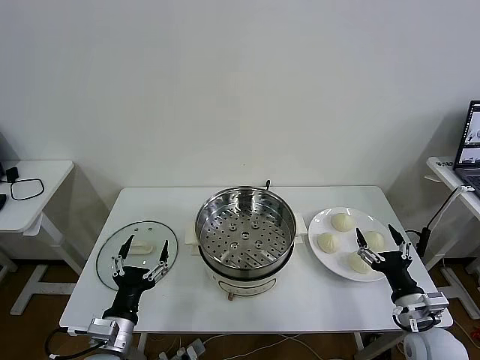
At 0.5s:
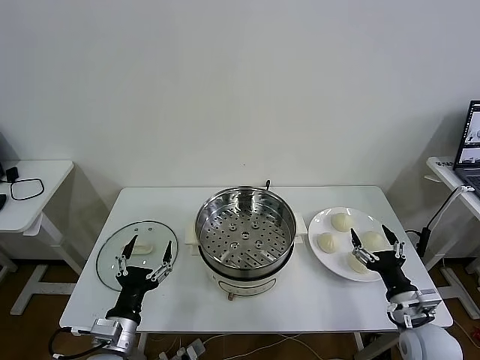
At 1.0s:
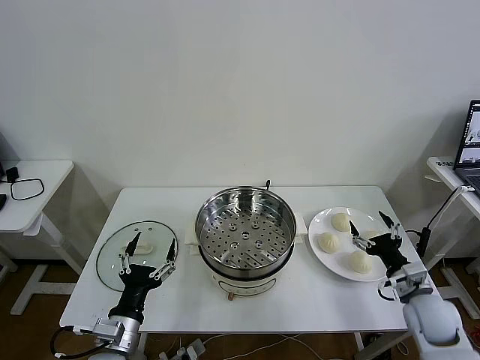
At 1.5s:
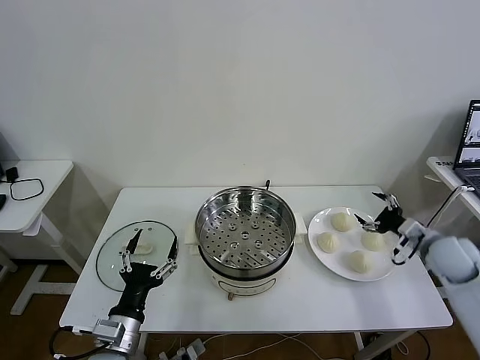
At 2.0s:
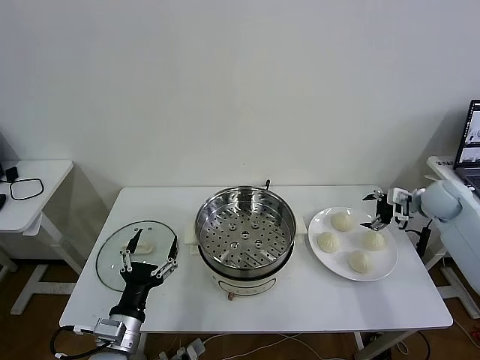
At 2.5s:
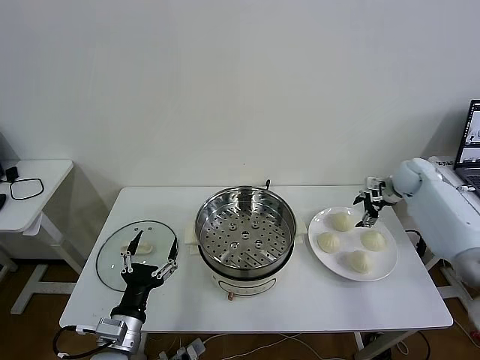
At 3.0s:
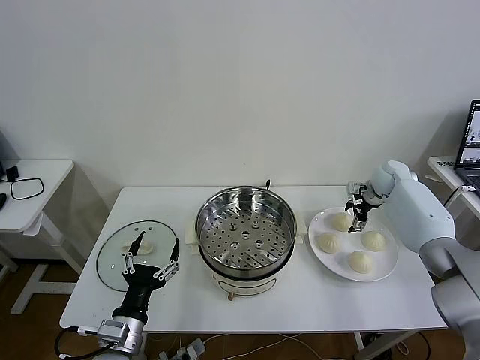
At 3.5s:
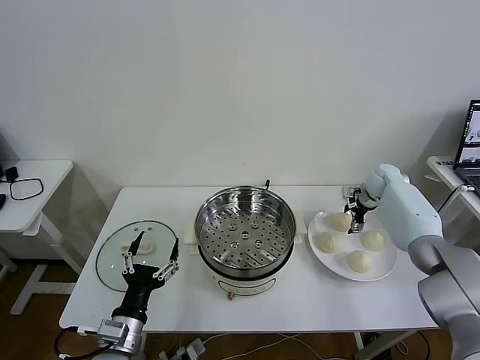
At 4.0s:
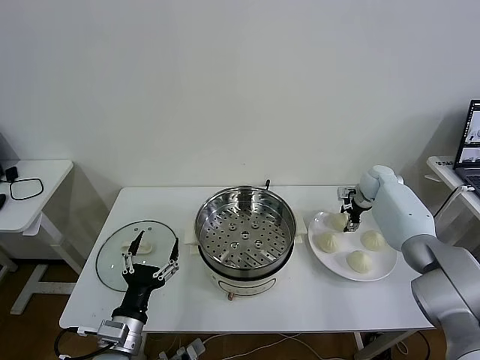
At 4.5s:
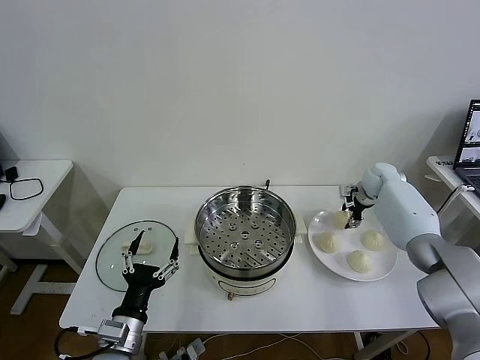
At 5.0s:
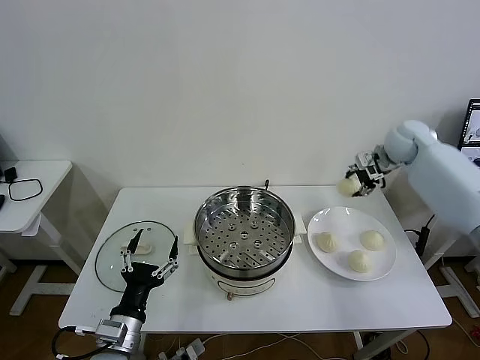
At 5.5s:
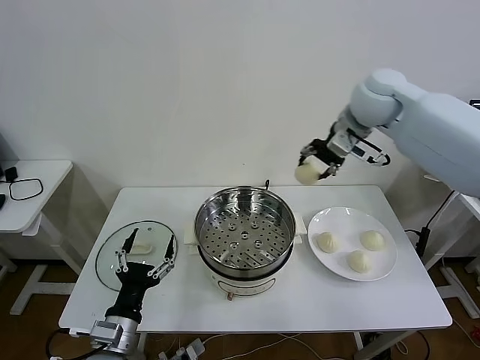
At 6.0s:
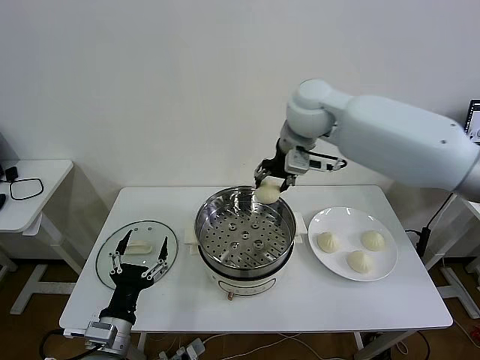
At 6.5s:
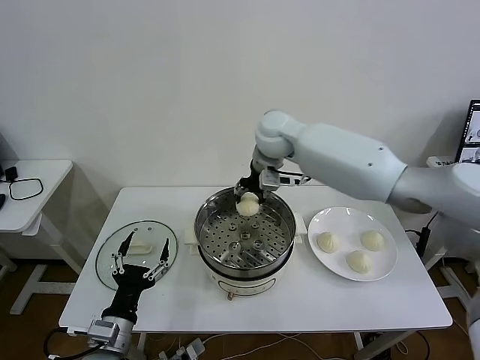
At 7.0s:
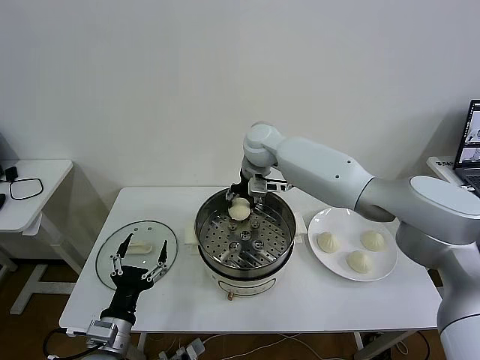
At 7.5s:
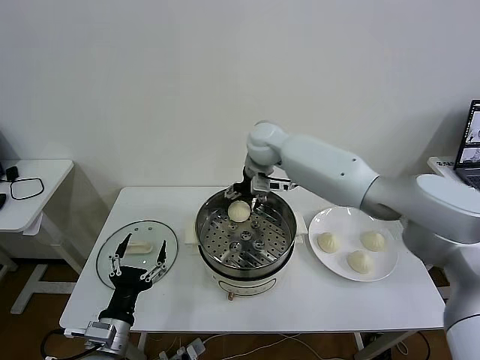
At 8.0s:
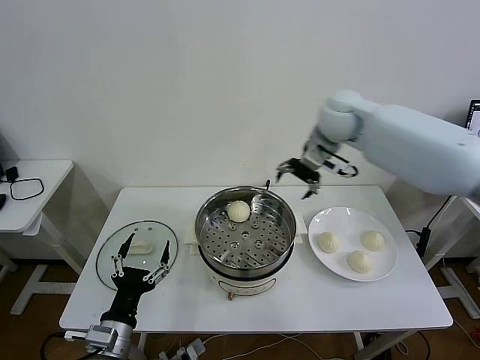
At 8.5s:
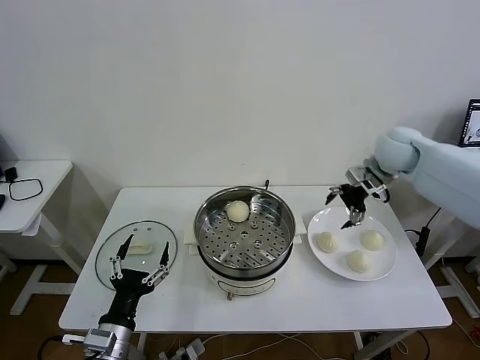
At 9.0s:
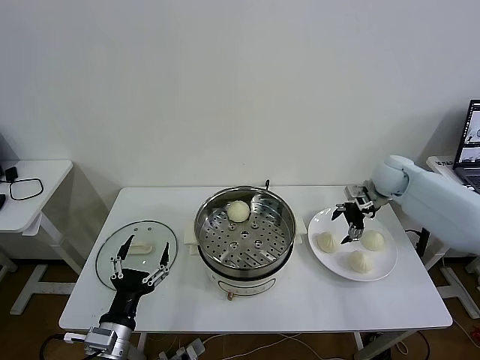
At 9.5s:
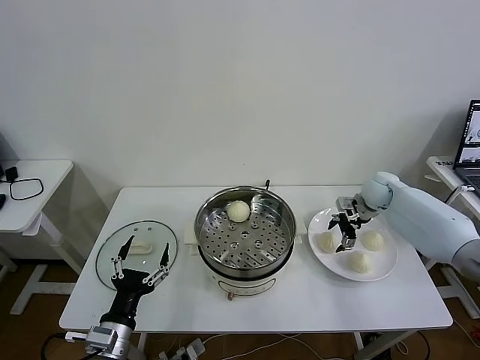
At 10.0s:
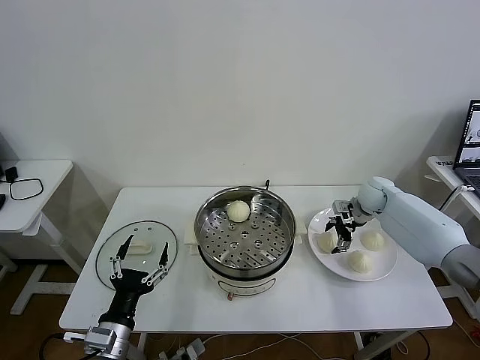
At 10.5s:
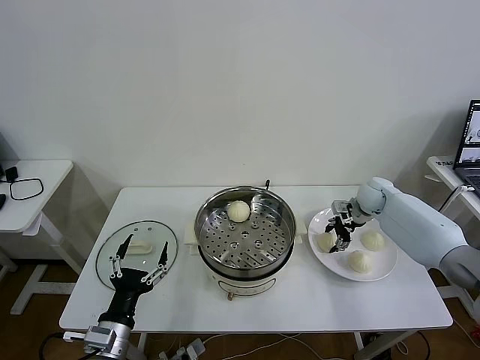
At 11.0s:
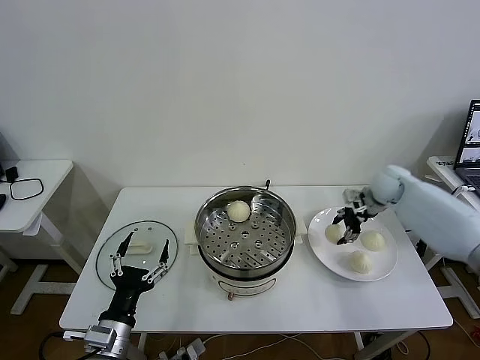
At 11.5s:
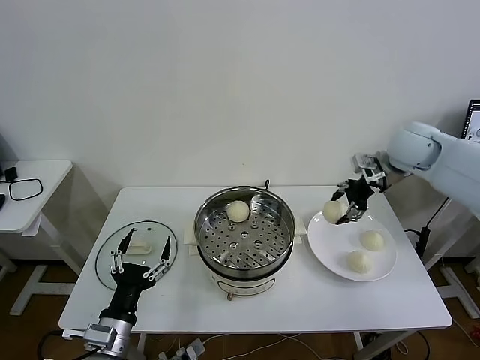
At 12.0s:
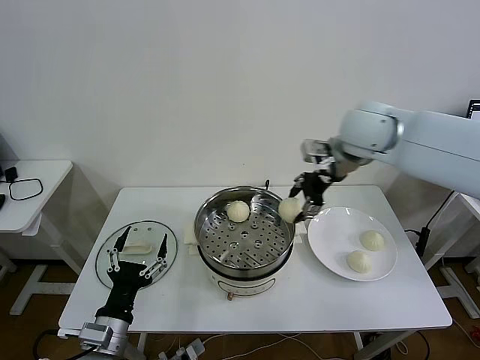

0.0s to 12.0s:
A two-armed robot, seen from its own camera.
Task of the whole recording: take steamed baozi put them in steamer then cover it.
Step, 0.0s to 4.0s: Grasp the baozi in the plate with right gripper.
Step, 4.5s to 7.0s: Place the baozi on the steamer with right gripper.
Step, 7.5s to 10.0s: Grasp the baozi in the plate with right gripper.
2.0s to 4.0s: The right gripper goes some 15 cm forward, to the left and downward, and closes up.
4.0s to 6.0s: The right gripper travels to the left and upward by approximately 40 cm.
6.0s to 8.0s: The right gripper heads to the right, covering about 15 cm, and opens its fingers.
8.0s to 10.0s: The right gripper moves downward and to the right, approximately 25 cm.
10.0s to 12.0s: The right gripper goes approximately 30 cm upward and to the left, and closes up.

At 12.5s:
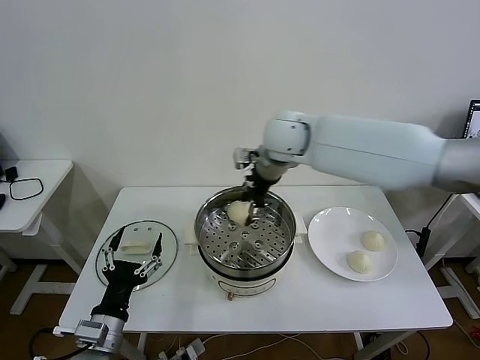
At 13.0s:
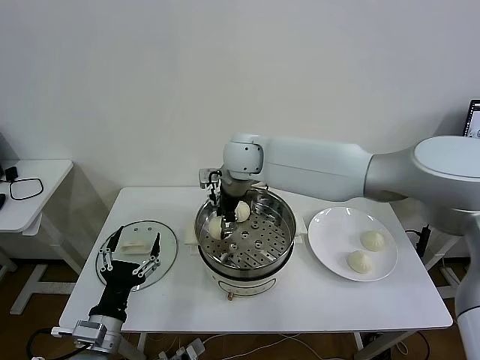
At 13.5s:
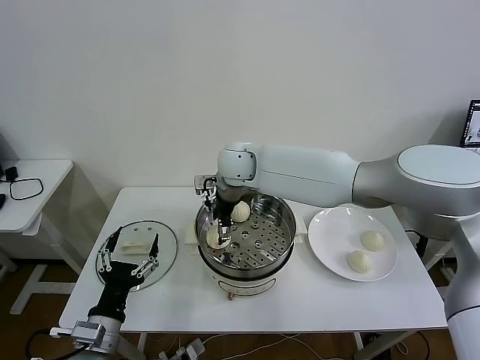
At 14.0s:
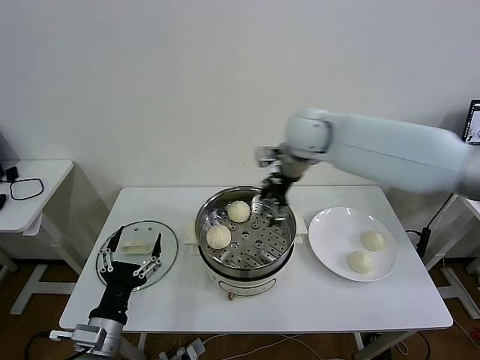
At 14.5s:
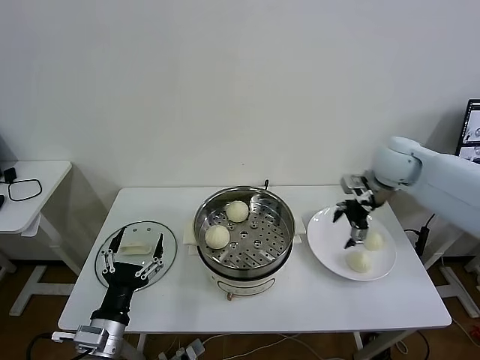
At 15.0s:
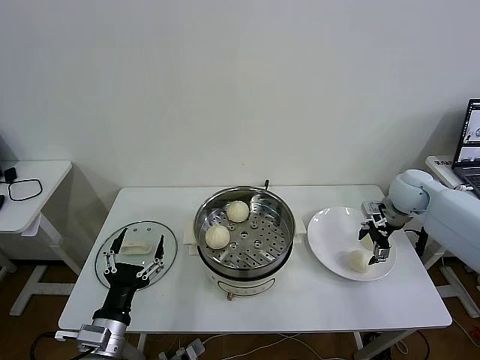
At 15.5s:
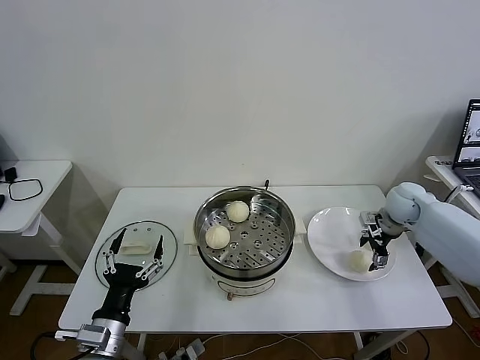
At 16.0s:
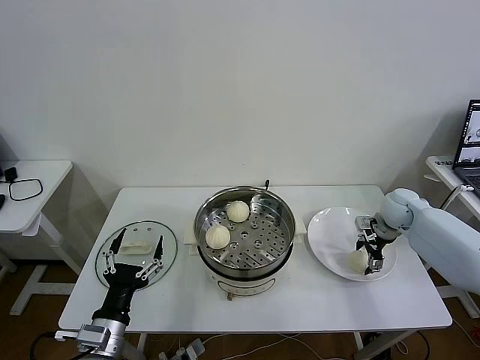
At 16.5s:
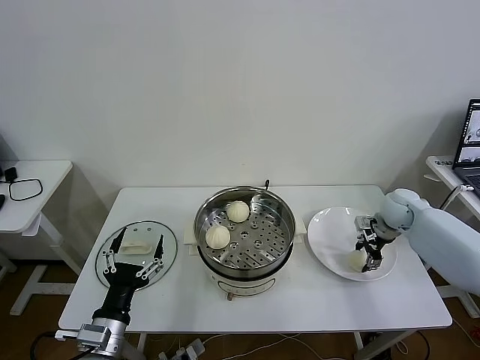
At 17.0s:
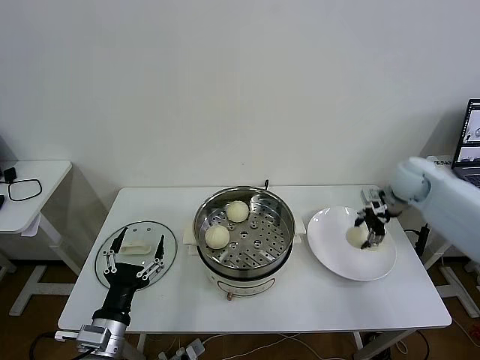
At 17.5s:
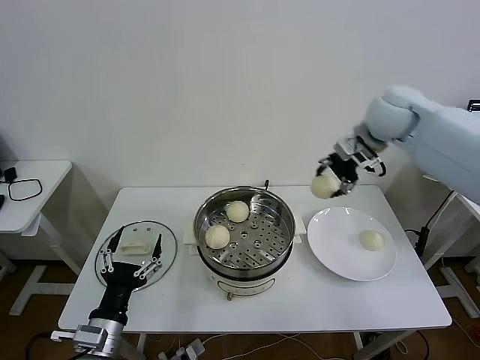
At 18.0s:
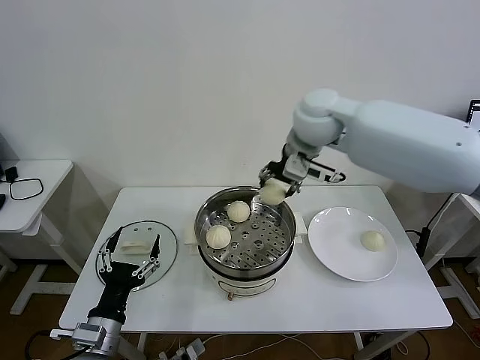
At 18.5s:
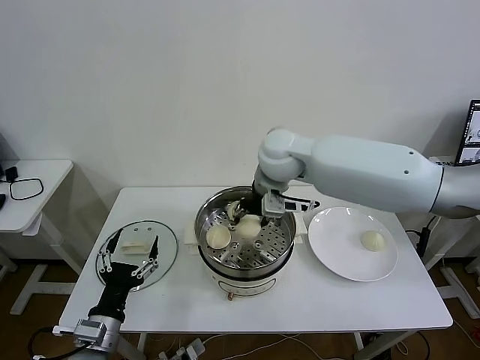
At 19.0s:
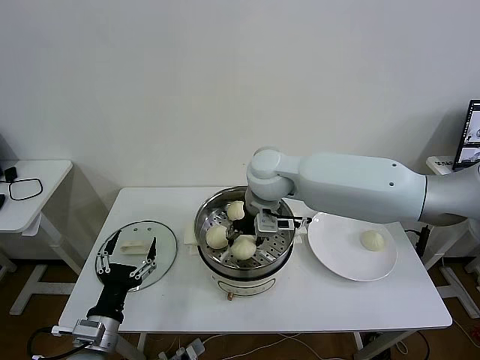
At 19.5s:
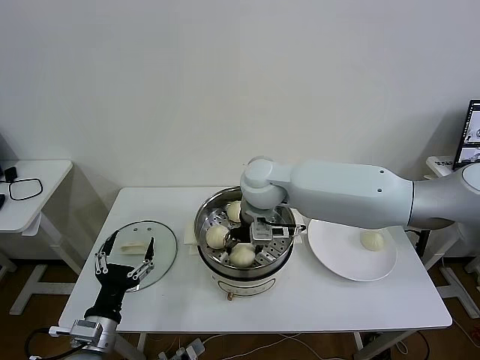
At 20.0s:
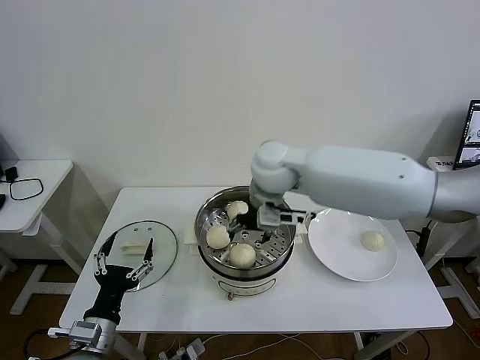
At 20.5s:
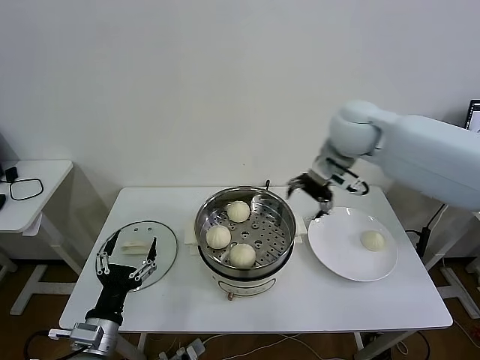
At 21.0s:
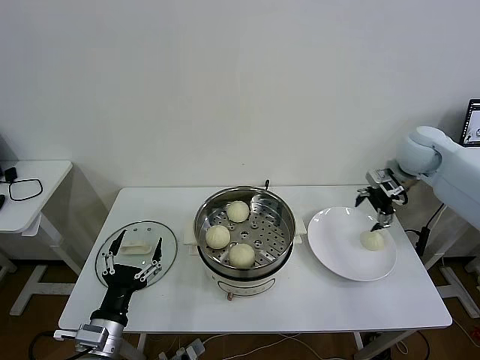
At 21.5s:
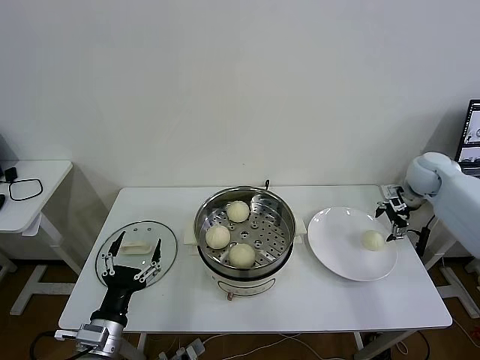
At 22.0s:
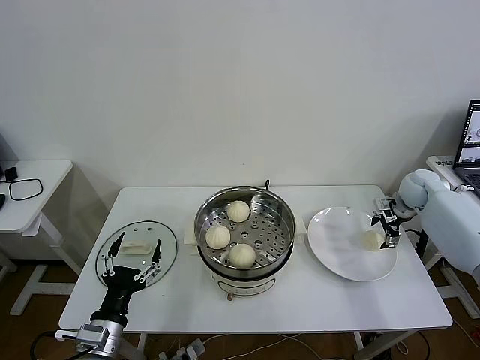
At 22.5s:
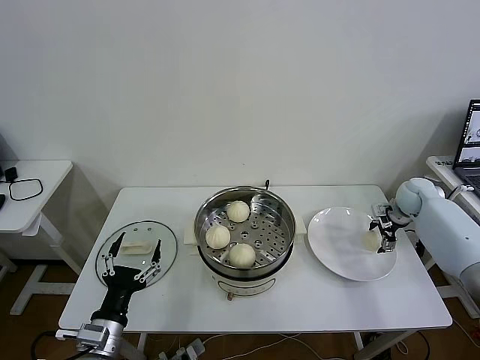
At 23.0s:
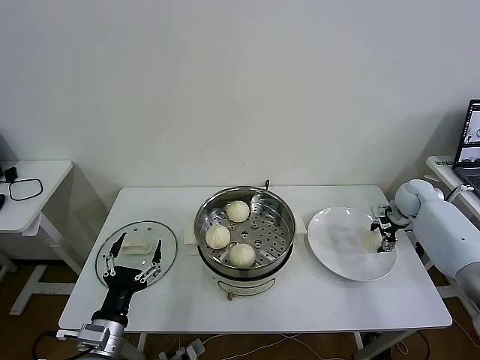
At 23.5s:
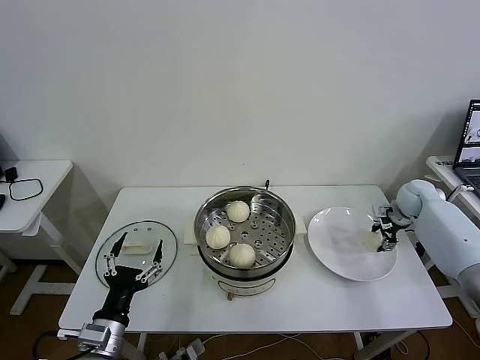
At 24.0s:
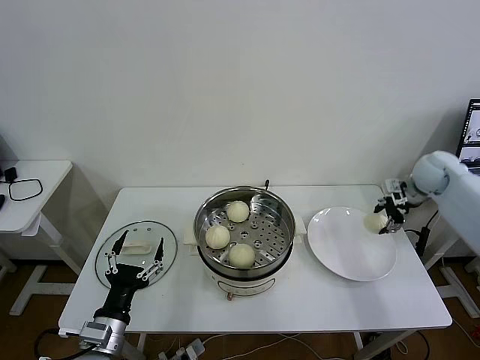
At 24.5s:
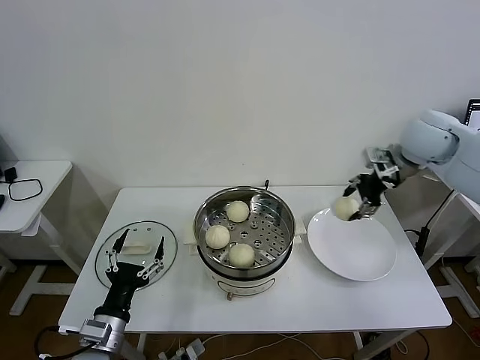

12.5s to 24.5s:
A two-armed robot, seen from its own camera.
Task of the whole recording: take steamed baozi put them in steamer then cover it.
Step, 14.0s to 16.0s: Grasp the baozi in the plate with right gripper.
Step, 16.5s to 19.5s: Place the baozi on the steamer with right gripper.
Step, 20.0s to 23.0s: Grasp the baozi in the plate with right gripper.
12.5s to 14.5s: The right gripper heads to the right, covering approximately 25 cm, and opens its fingers.
14.5s to 16.5s: The right gripper shifts some 15 cm downward and to the right, and closes up.
16.5s to 18.5s: The right gripper shifts approximately 40 cm to the left and upward.
18.5s to 20.5s: The right gripper shifts about 15 cm to the right, and opens.
20.5s to 22.5s: The right gripper is displaced to the right and downward by roughly 35 cm.
22.5s to 24.5s: The right gripper shifts about 25 cm upward and to the left, and closes.

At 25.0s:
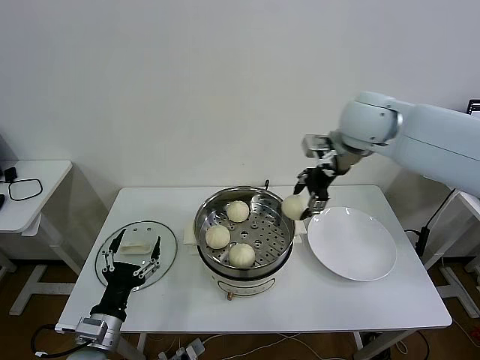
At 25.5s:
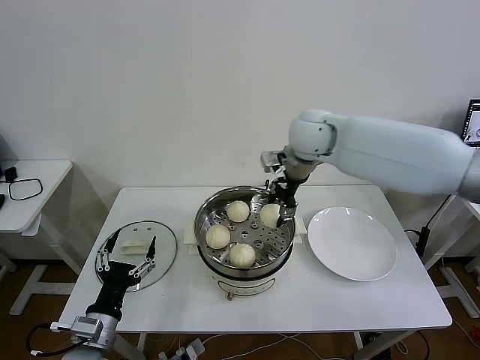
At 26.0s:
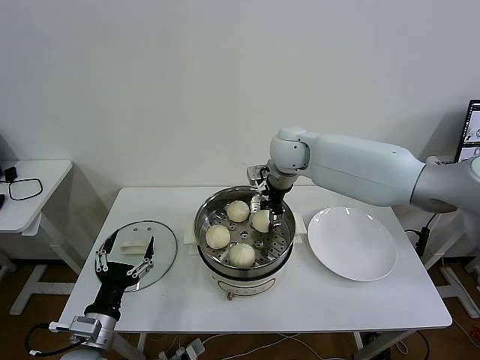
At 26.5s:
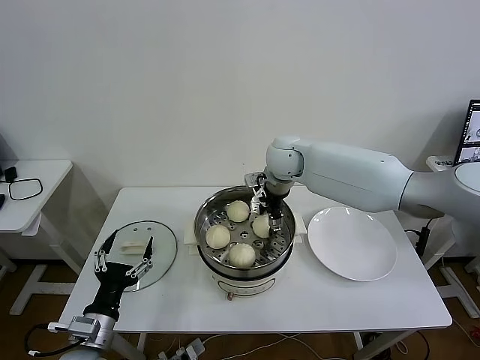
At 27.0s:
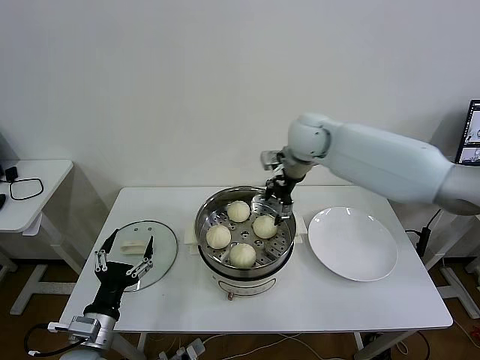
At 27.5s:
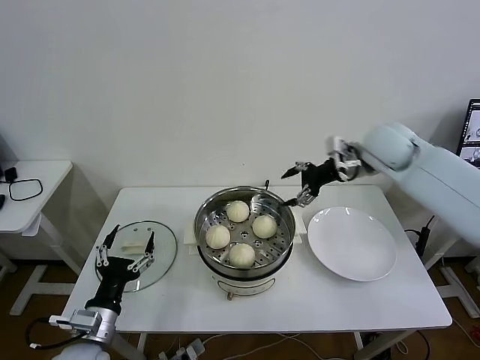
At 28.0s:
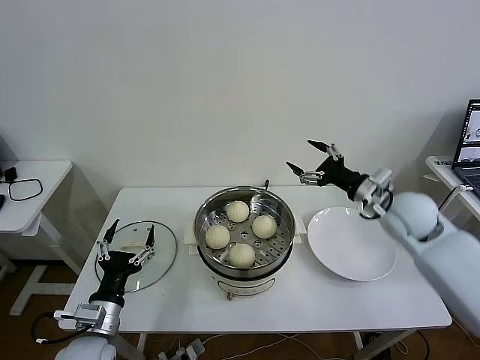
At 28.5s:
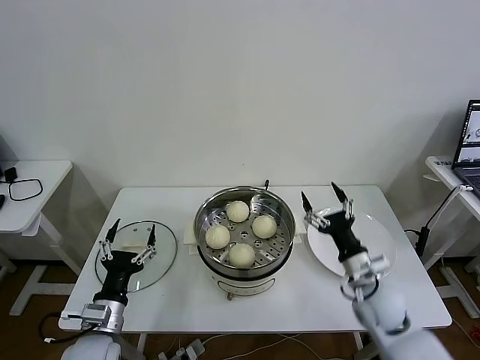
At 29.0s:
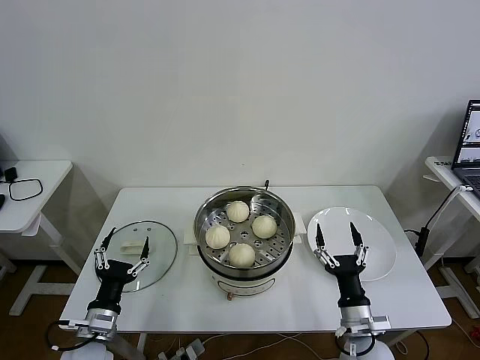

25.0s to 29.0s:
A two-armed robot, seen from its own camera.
Task of the whole recording: take steamed baozi put them in steamer then cover it.
25.0s to 27.0s: The right gripper is displaced to the left, downward and forward by roughly 10 cm, and opens.
27.0s to 29.0s: The right gripper is displaced backward and downward by roughly 50 cm.
